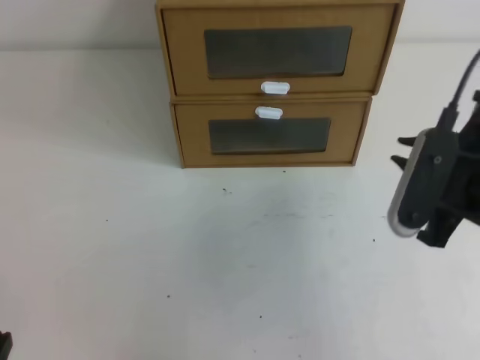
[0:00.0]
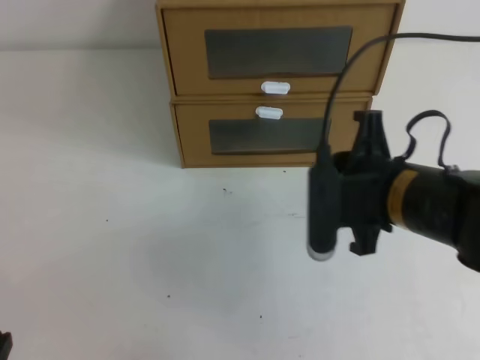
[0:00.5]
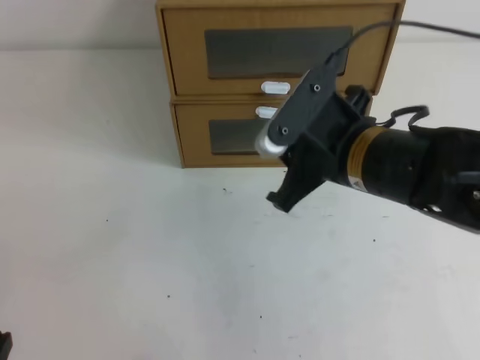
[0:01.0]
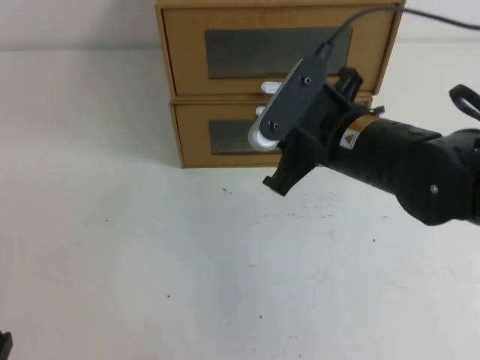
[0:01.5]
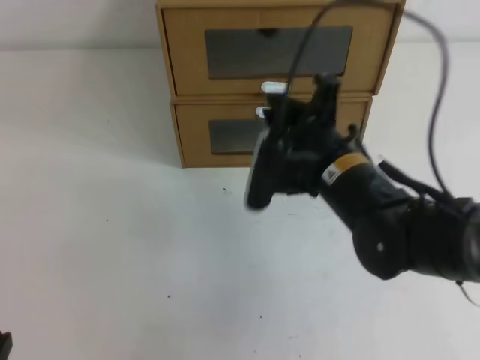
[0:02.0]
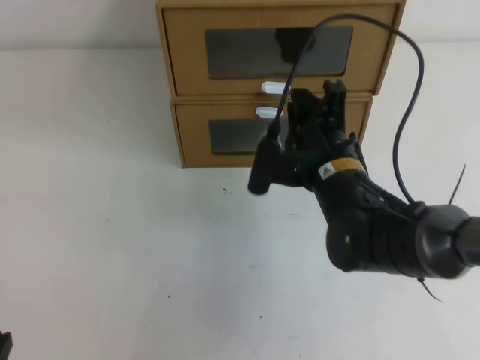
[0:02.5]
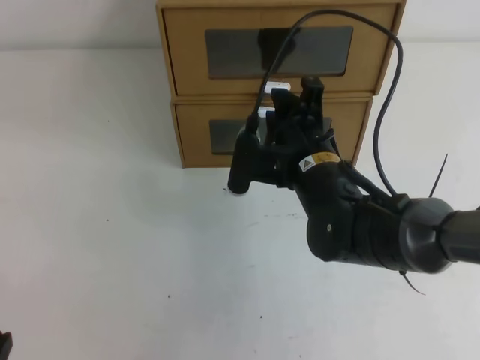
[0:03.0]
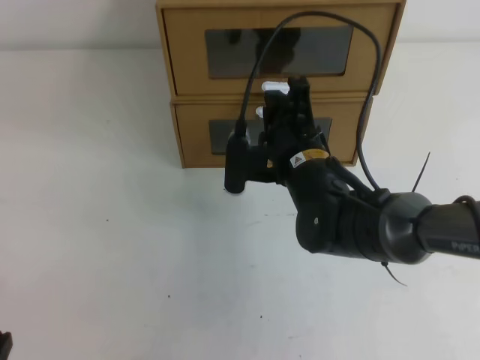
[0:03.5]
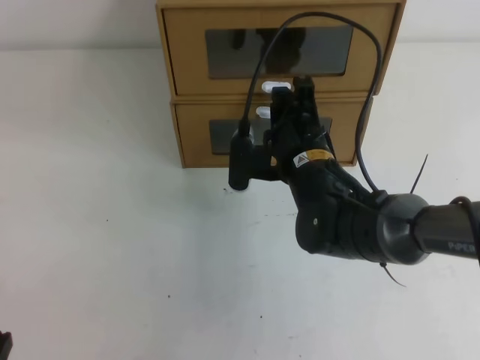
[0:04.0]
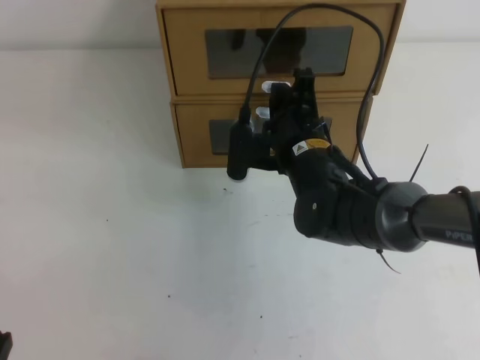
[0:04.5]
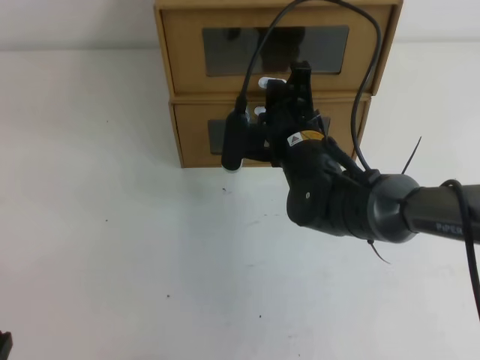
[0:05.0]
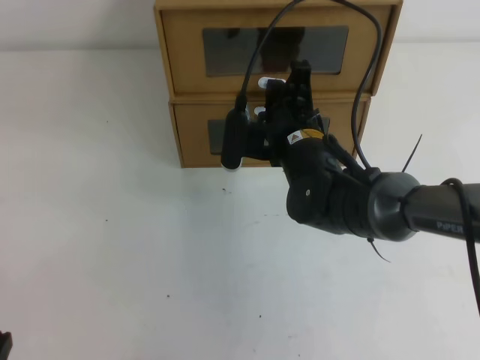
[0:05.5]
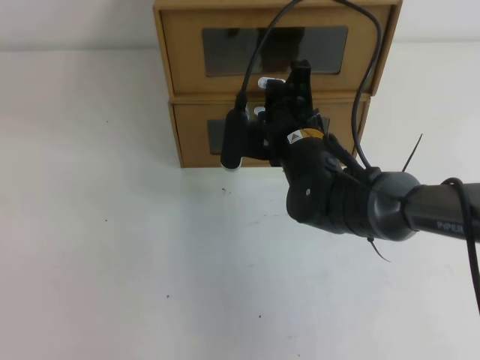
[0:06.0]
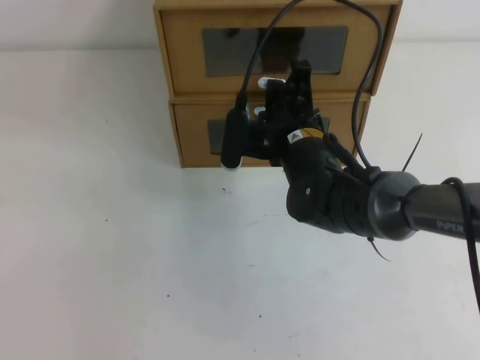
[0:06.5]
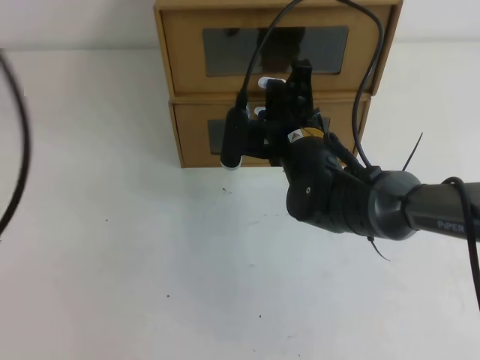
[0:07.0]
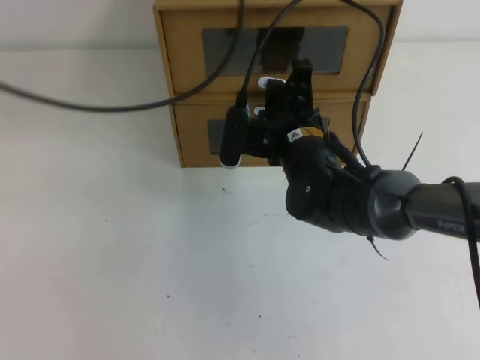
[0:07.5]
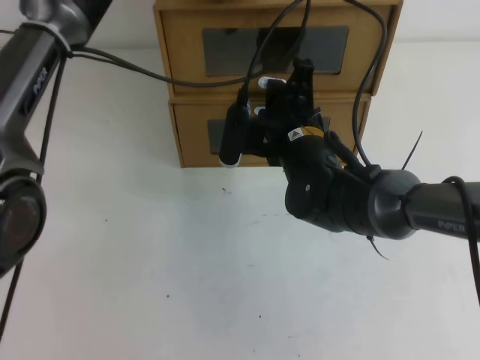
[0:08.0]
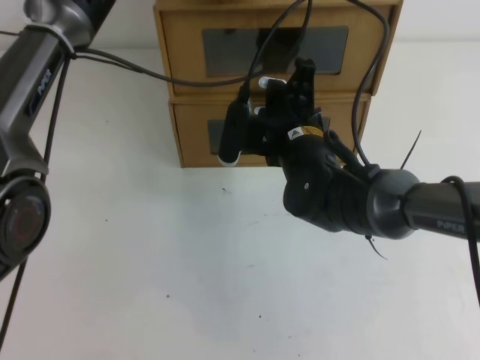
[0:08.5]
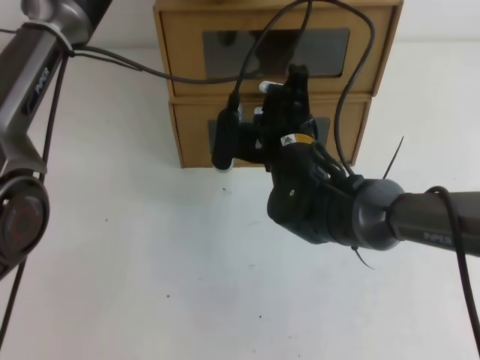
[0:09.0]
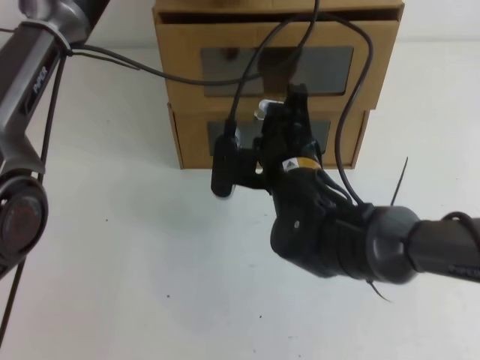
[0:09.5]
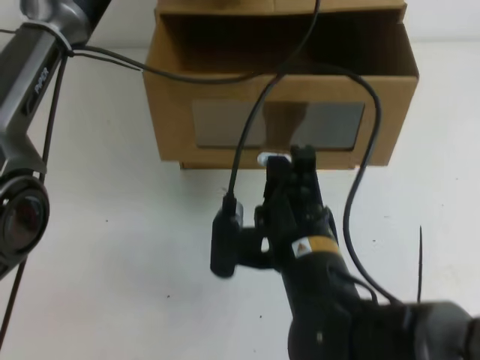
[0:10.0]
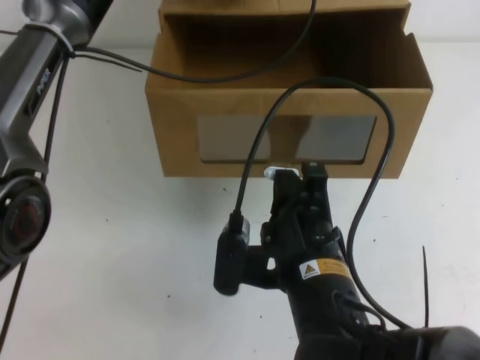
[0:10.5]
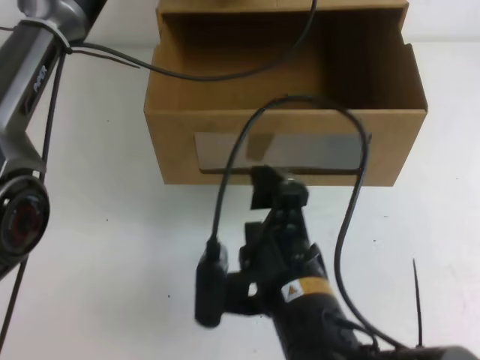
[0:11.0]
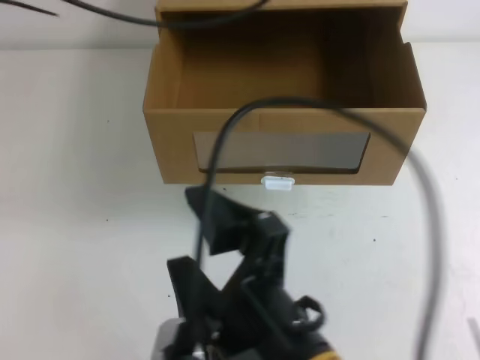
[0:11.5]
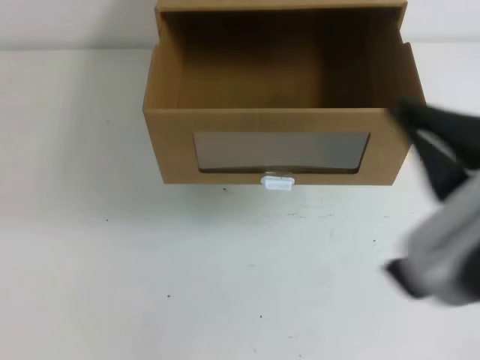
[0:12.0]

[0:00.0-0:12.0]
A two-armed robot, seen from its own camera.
Task of the whole recording: open the shoebox on the table.
0:00.0 to 0:02.0: The right gripper moves to the left and forward, roughly 15 cm.
0:02.0 to 0:04.0: The right gripper ends up some 5 cm from where it was.
0:06.0 to 0:08.0: The left gripper travels forward, to the right and upward by approximately 50 cm.
0:08.0 to 0:10.0: The right gripper travels backward by about 15 cm.
0:10.0 to 0:12.0: The left gripper heads backward, upward and to the left, covering about 35 cm, while the right gripper shifts roughly 25 cm upward, backward and to the right, and opens and closes again.

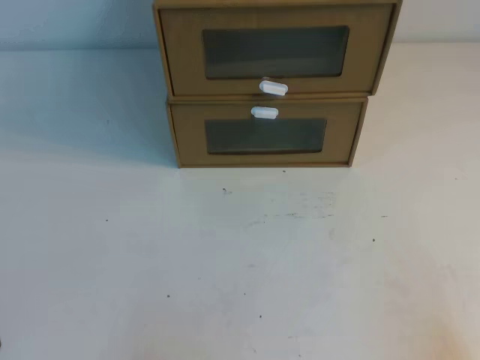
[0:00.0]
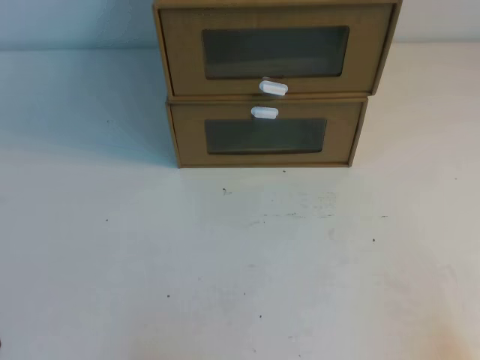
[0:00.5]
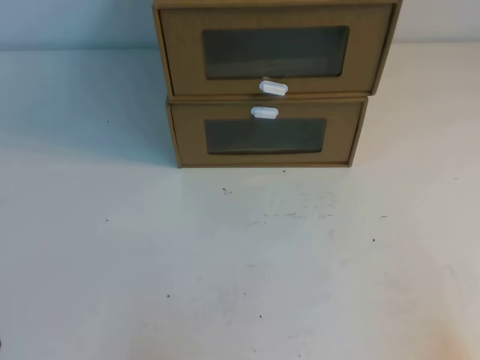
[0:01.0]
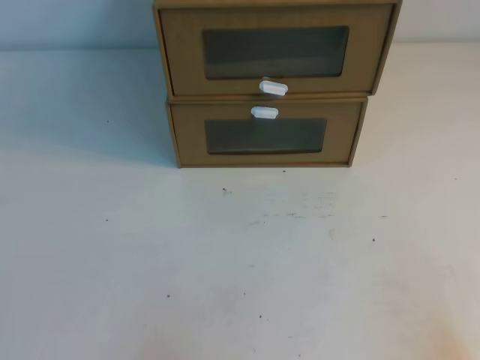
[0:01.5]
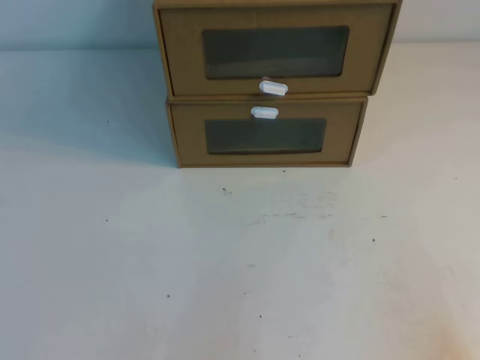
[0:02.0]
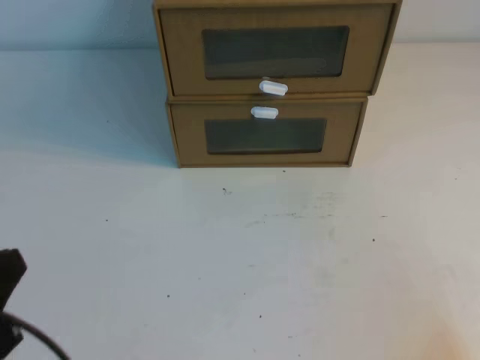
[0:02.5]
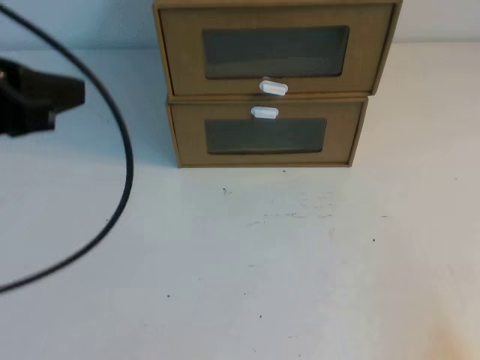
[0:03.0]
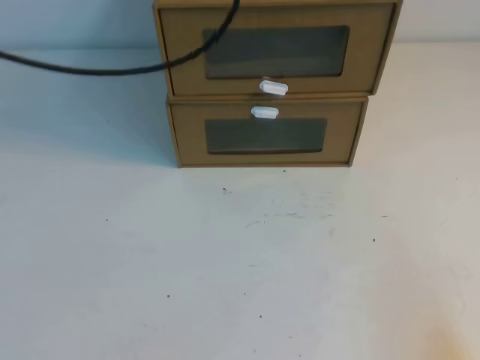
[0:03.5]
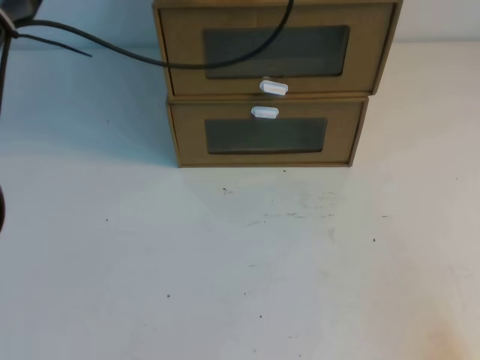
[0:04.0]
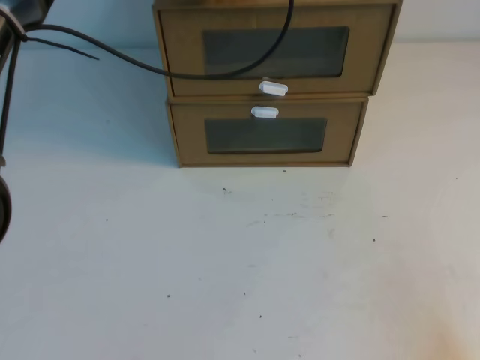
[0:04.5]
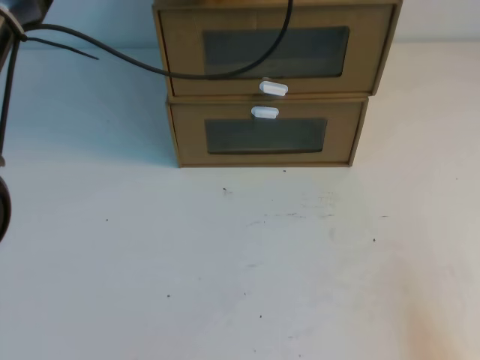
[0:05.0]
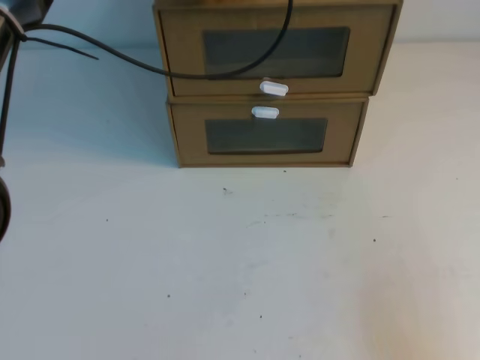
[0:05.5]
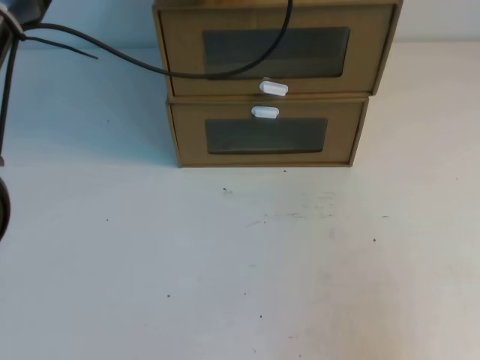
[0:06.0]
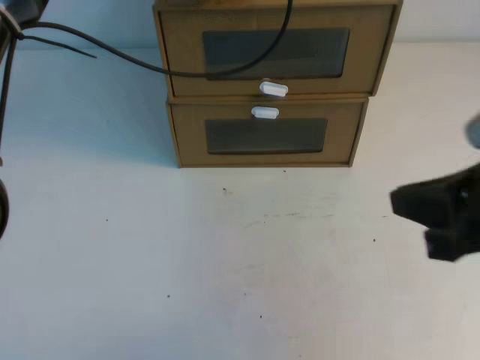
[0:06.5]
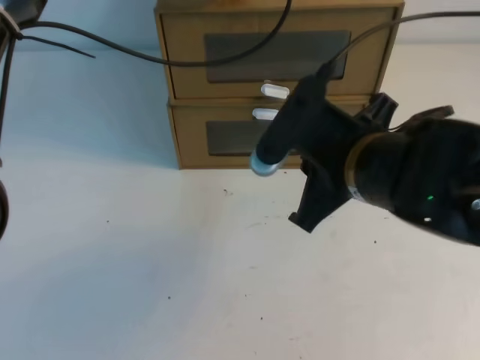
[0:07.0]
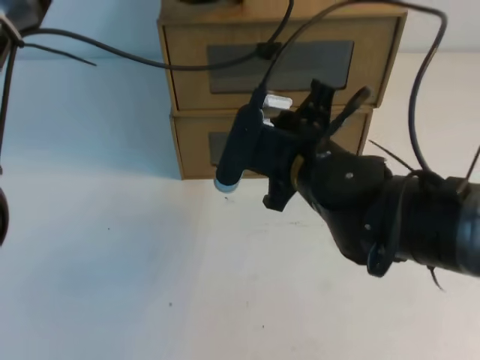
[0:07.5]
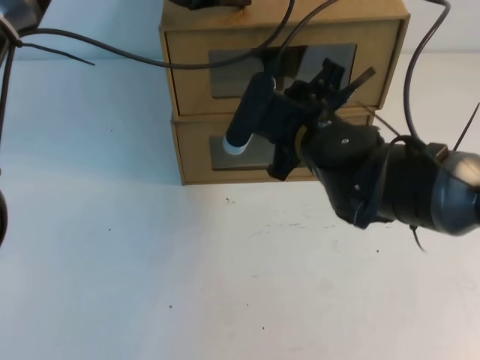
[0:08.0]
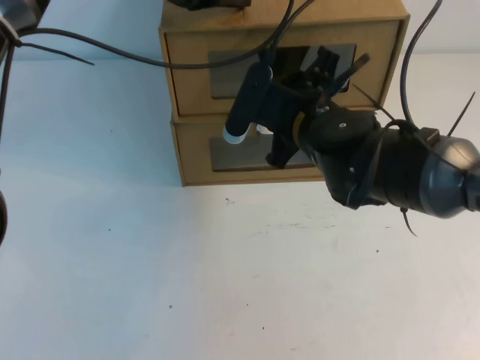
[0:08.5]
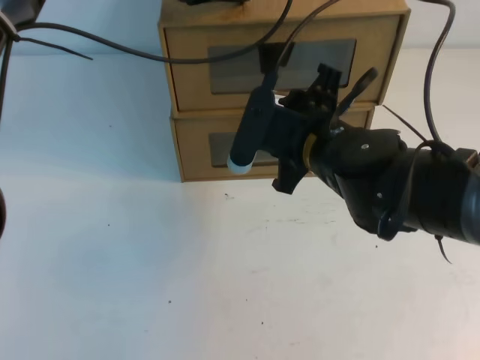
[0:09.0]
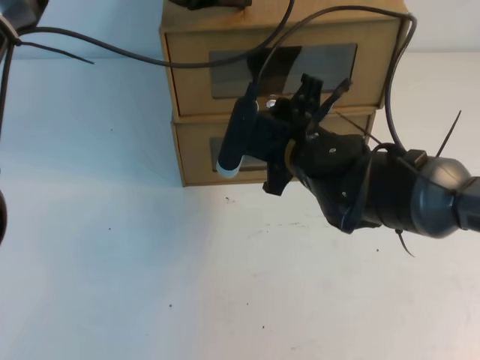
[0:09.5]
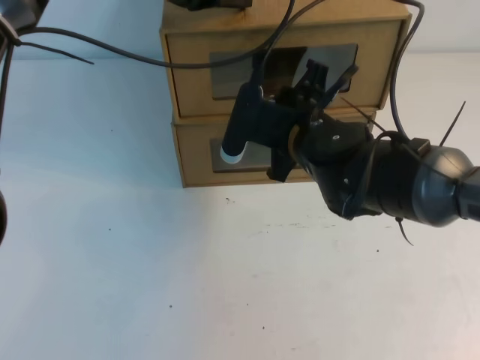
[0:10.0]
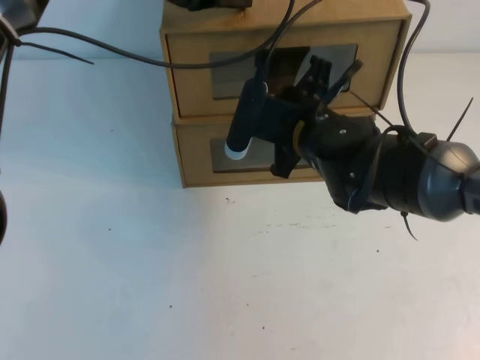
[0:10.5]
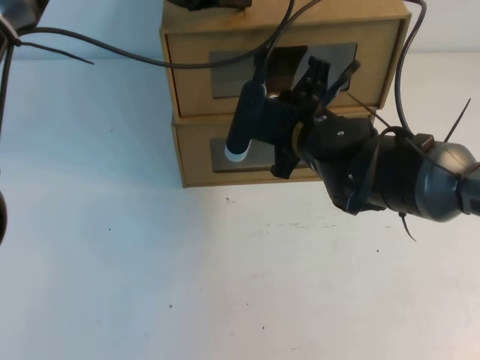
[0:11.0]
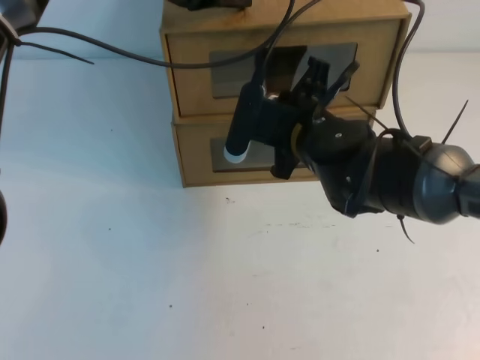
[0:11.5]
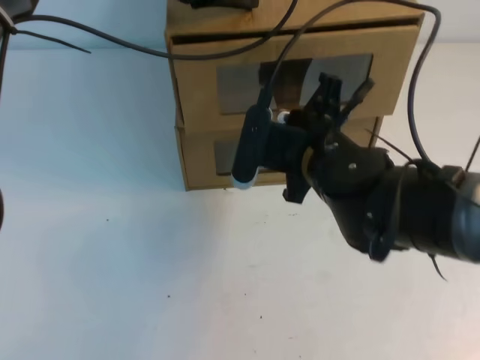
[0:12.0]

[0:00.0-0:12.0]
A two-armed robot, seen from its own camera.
Task of the whole recording: open the shoebox on the table.
0:02.0 to 0:04.0: The left gripper shifts approximately 50 cm forward, upward and to the right.
0:04.0 to 0:06.0: The right gripper shifts about 10 cm upward.
0:06.0 to 0:08.0: The right gripper moves forward and to the left, about 35 cm, and opens.
0:08.0 to 0:10.0: The grippers move only a little.
0:10.0 to 0:12.0: The right gripper closes its fingers.

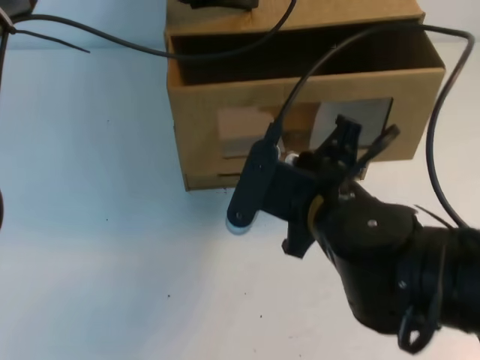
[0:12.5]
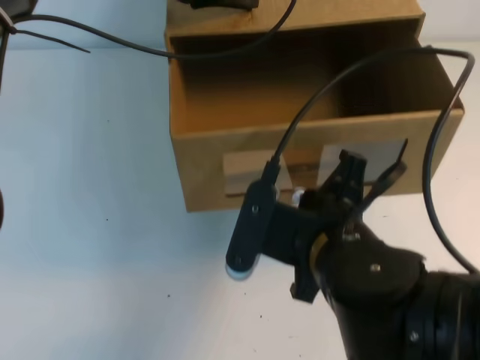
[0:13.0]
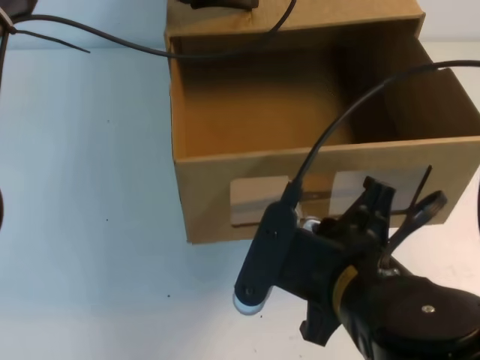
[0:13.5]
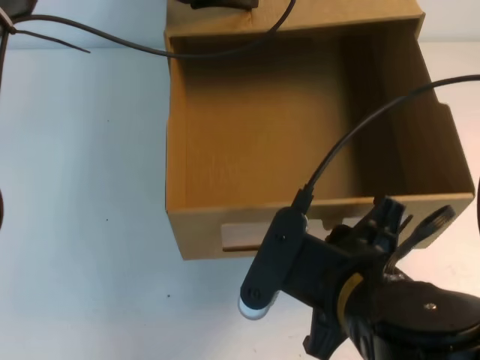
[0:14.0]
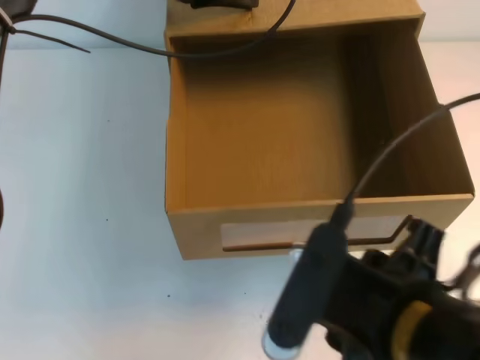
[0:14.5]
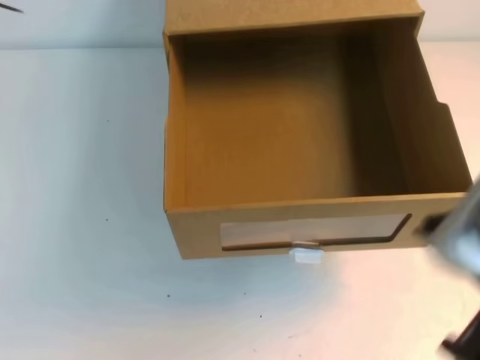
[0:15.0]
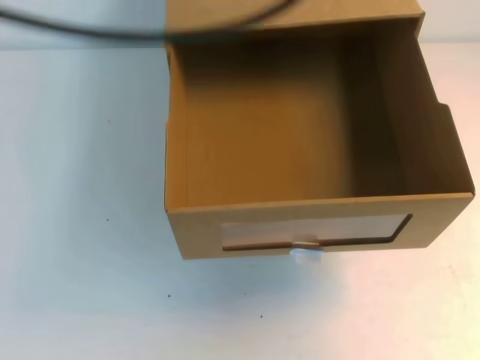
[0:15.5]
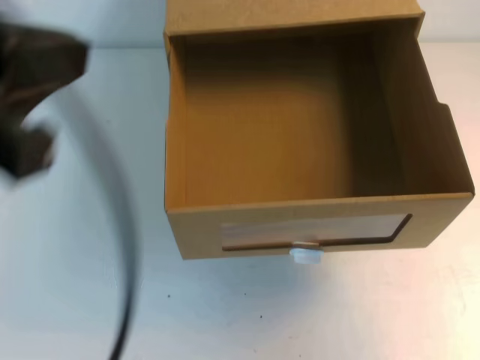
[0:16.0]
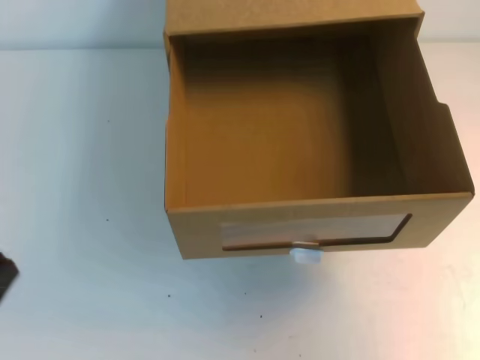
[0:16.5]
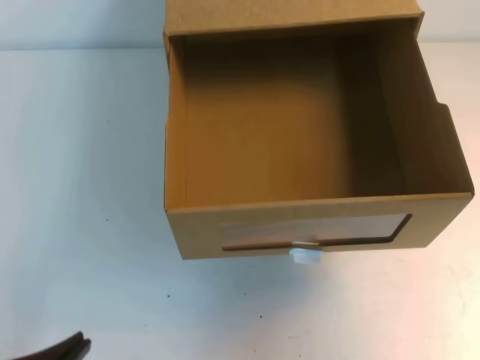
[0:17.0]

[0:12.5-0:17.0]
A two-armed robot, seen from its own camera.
Task of the whole recording: open the shoebox on the table.
0:12.5 to 0:14.5: The right gripper goes roughly 15 cm backward, and opens.
0:14.5 to 0:17.0: The left gripper travels backward, downward and to the left by about 40 cm. Meanwhile the right gripper shifts some 25 cm to the right and upward, and closes its fingers.
